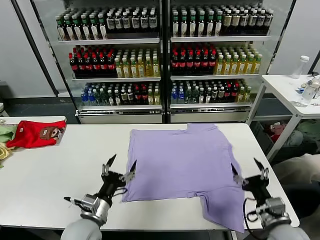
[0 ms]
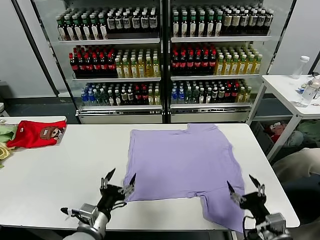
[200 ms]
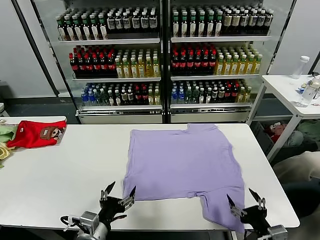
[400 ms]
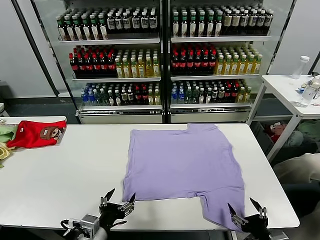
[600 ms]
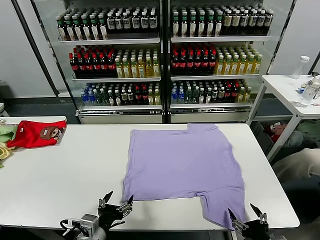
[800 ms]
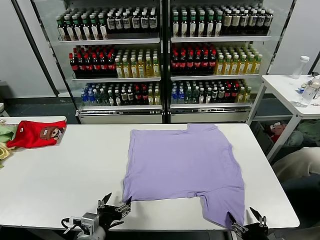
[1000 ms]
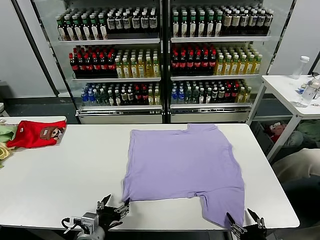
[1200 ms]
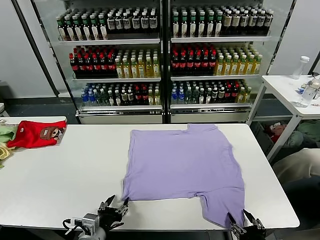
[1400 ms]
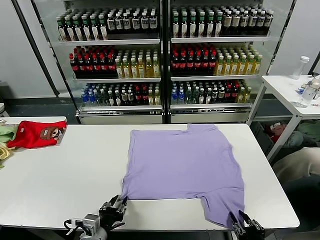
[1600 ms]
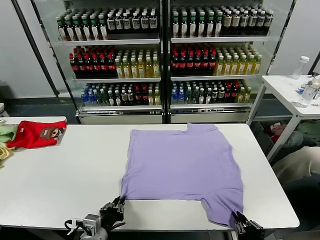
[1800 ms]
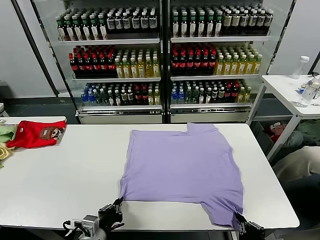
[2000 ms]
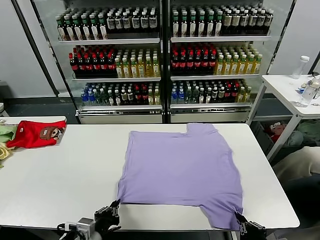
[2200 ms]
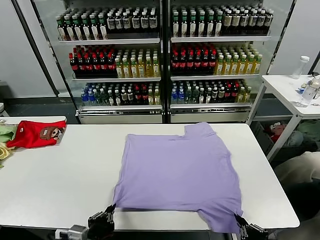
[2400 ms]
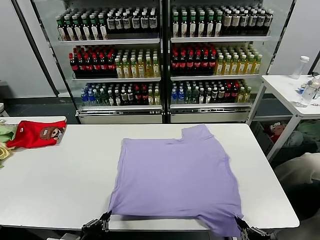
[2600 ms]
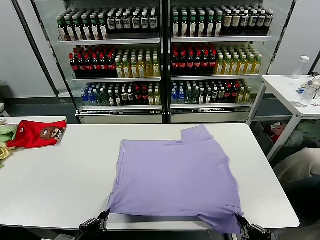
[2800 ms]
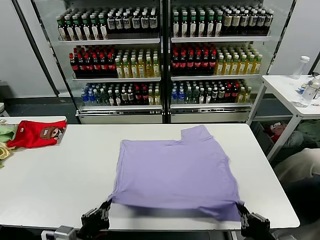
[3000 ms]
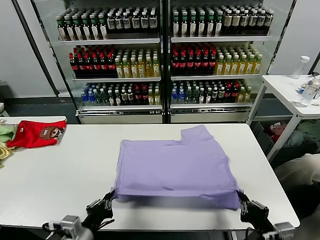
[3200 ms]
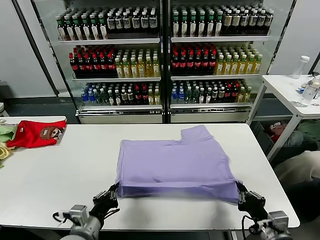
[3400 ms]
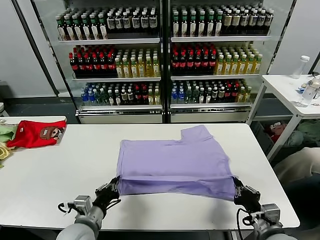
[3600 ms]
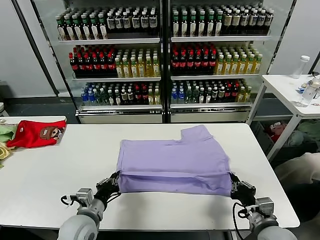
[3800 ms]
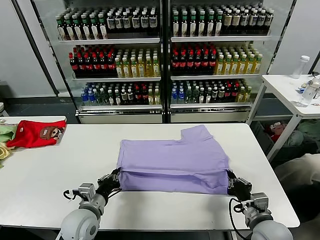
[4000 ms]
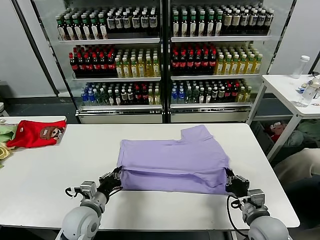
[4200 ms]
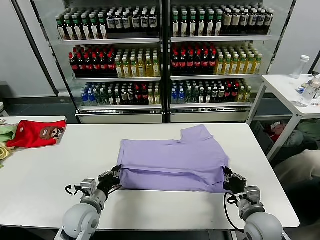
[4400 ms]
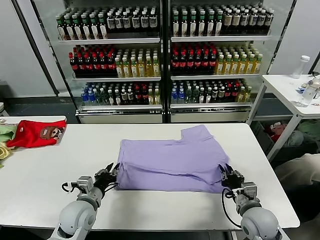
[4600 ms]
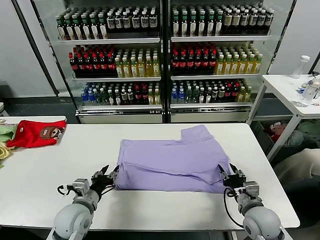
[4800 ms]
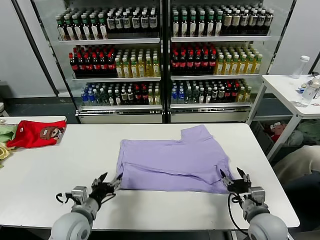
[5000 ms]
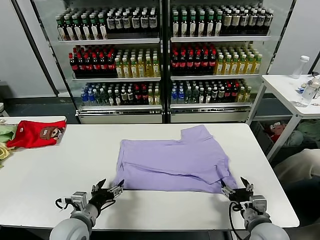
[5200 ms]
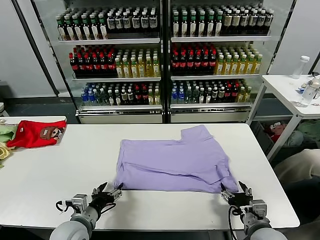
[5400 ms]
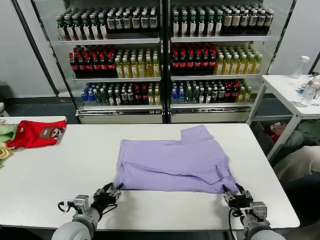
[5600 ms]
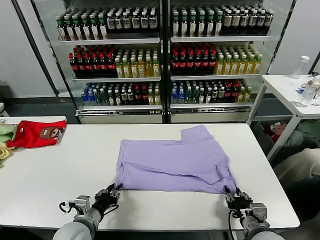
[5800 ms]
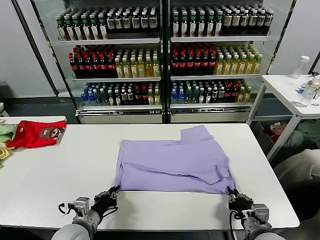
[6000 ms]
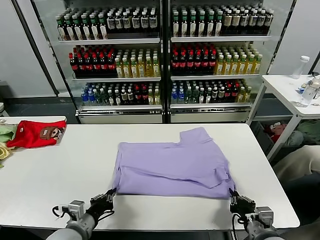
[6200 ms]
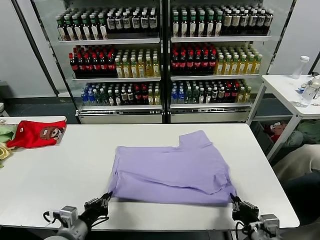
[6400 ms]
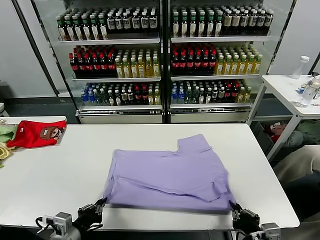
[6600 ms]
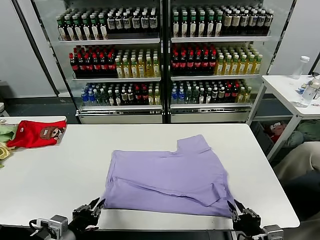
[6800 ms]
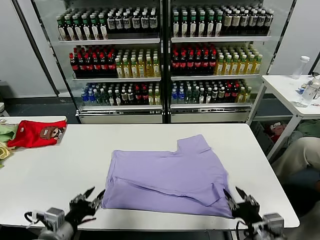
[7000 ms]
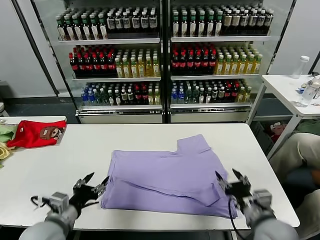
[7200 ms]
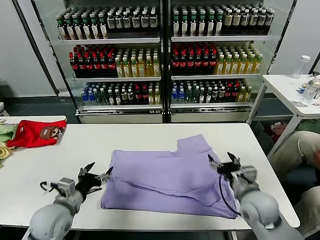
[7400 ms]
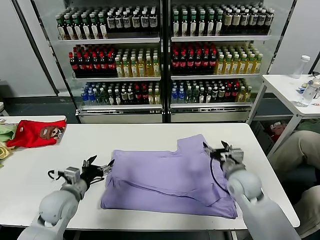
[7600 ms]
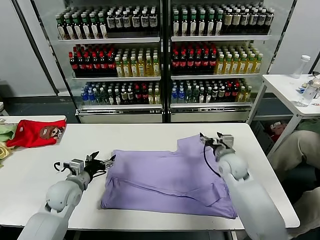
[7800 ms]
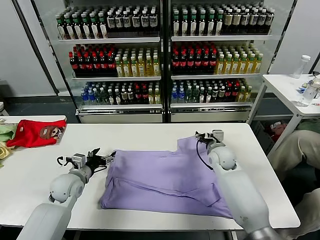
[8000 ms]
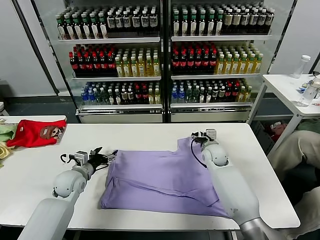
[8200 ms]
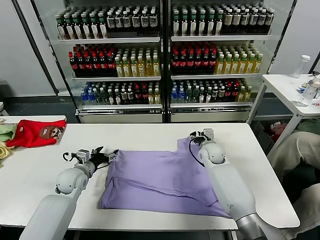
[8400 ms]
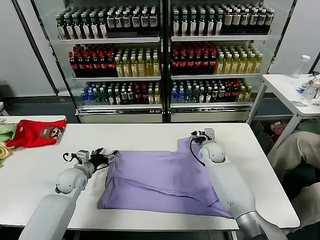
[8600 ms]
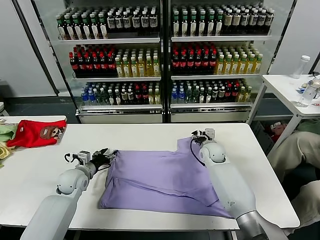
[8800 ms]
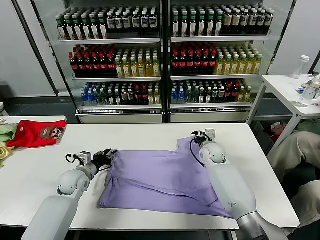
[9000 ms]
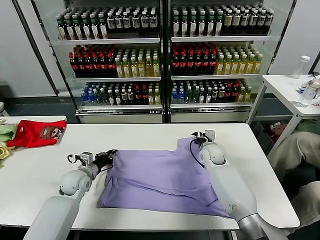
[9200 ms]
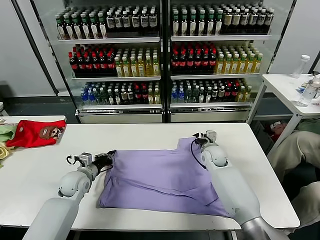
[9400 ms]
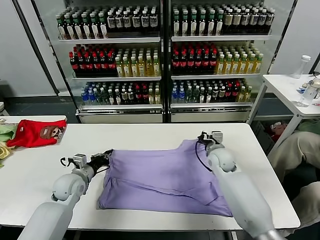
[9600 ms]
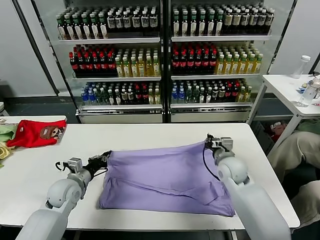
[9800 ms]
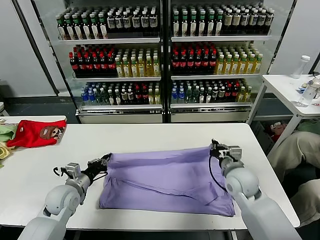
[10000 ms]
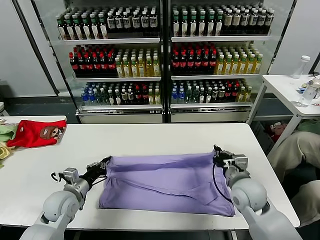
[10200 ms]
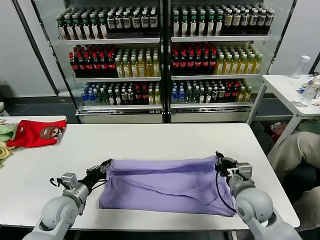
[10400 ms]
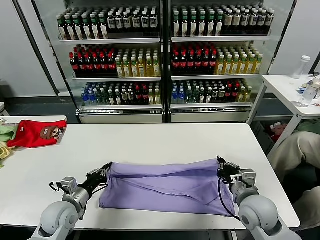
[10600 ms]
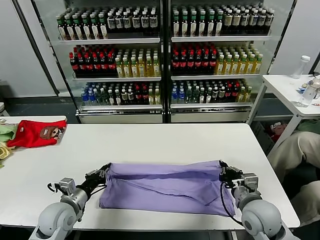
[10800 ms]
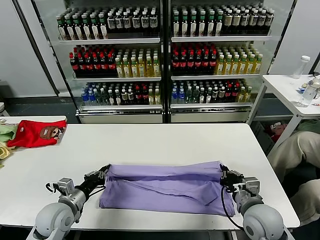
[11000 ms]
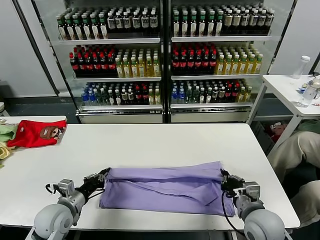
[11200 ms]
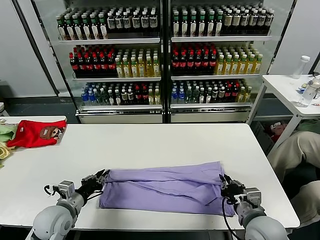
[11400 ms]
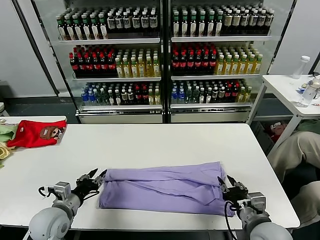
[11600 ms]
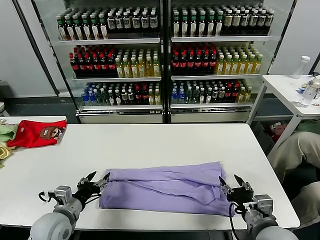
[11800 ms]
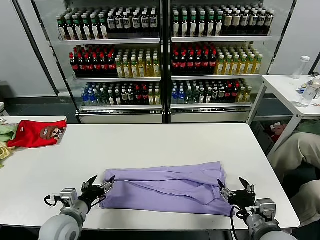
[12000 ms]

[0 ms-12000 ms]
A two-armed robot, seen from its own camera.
Task of the whole recording: fold and organize the clothes.
Step, 0 ms to 2000 ms: use both grippers simultaneously to clamp the lower edge of the clothing fabric.
Step, 2200 ms to 4800 ms: use both grippers to drag the lower edge of the fabric forward and fold it over the upper edge.
Step, 5000 ms to 6800 ms: Drag the clothes downward with both gripper.
Step, 7000 ms to 9200 ms: use both grippers simultaneously to clamp the upper edge of the clothing fabric.
Step, 9400 ms to 11800 ms: use both grippers to drag the upper edge of the fabric backward and fold it over the lower edge.
1600 ms to 3000 ms: The two grippers go about 5 cm upward. The left gripper closes up.
3000 ms to 4400 ms: The left gripper goes some 15 cm forward. Meanwhile the right gripper travels forward and downward by approximately 15 cm.
4400 ms to 6000 ms: Both grippers travel together backward, some 5 cm. The right gripper opens, then closes again. Meanwhile the left gripper opens and closes again.
6000 ms to 7600 ms: The left gripper heads forward and to the left, covering some 10 cm, and opens its fingers; the right gripper is displaced forward by roughly 25 cm, and opens.
7600 ms to 9000 ms: The left gripper shifts some 10 cm forward and downward, and closes. Meanwhile the right gripper moves forward, approximately 10 cm, and closes its fingers.
9000 ms to 10400 ms: The right gripper shifts some 25 cm backward, while the left gripper shifts about 10 cm backward, and closes up.
10400 ms to 12000 ms: The right gripper heads backward, covering roughly 10 cm, and opens its fingers. Meanwhile the left gripper heads backward, covering approximately 5 cm, and opens.

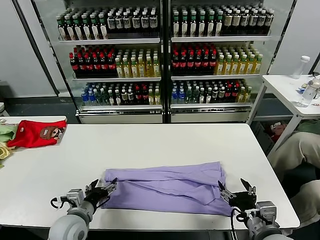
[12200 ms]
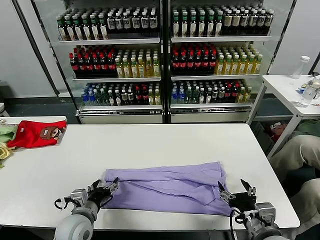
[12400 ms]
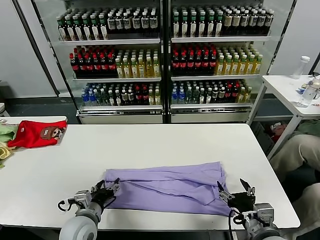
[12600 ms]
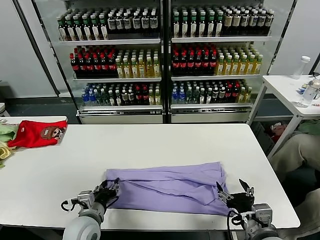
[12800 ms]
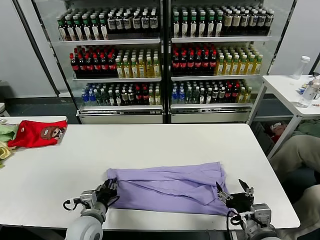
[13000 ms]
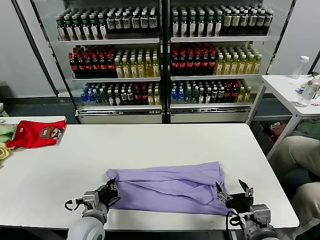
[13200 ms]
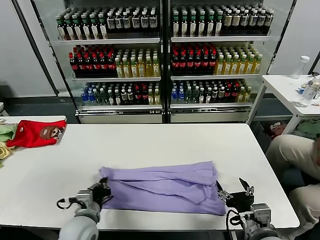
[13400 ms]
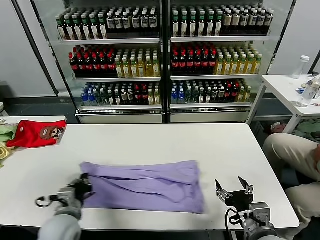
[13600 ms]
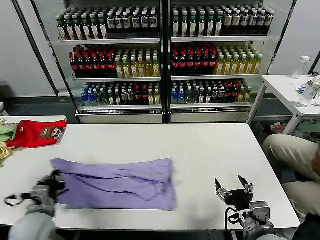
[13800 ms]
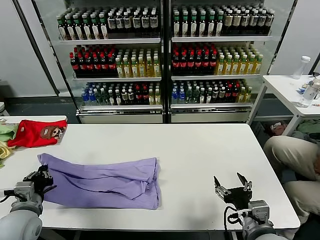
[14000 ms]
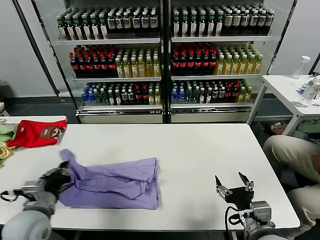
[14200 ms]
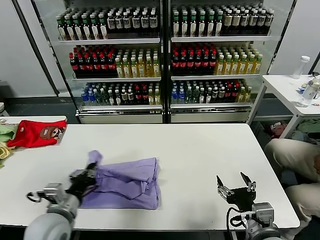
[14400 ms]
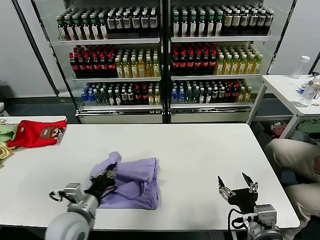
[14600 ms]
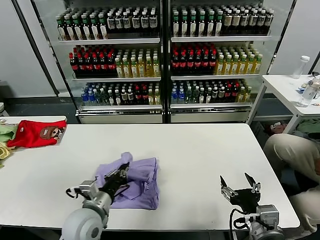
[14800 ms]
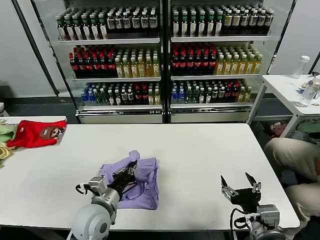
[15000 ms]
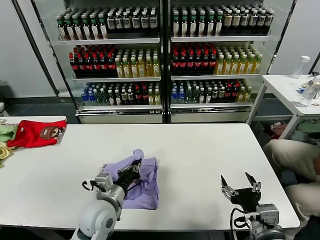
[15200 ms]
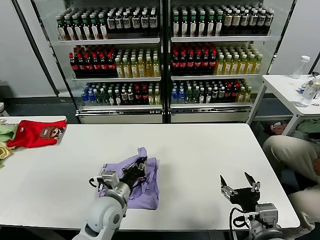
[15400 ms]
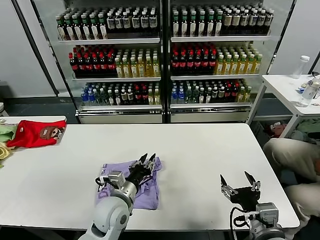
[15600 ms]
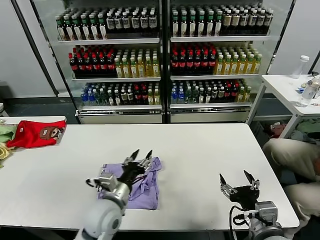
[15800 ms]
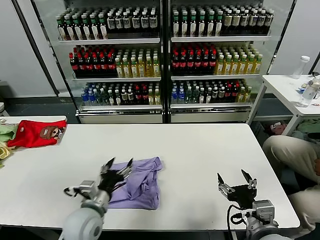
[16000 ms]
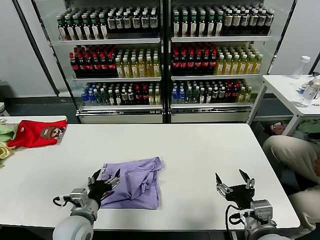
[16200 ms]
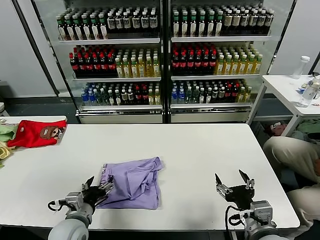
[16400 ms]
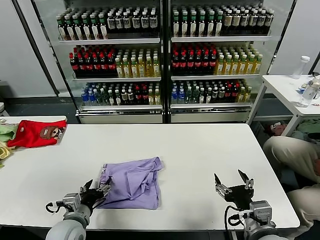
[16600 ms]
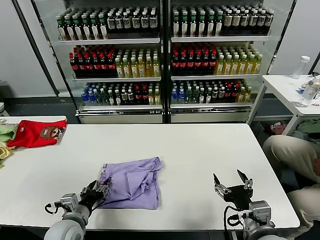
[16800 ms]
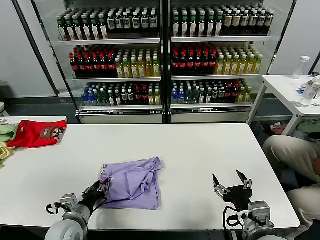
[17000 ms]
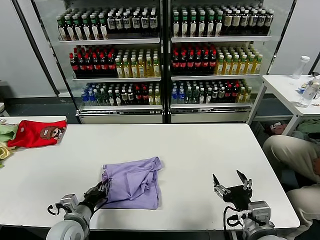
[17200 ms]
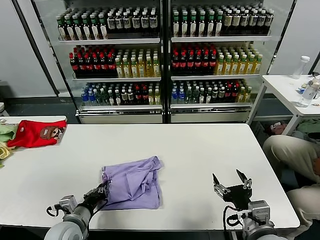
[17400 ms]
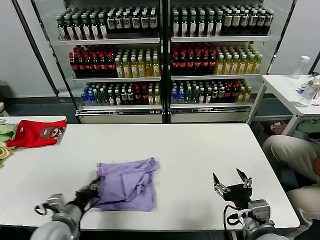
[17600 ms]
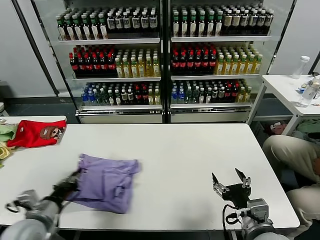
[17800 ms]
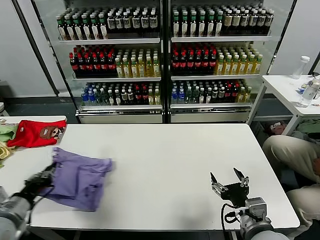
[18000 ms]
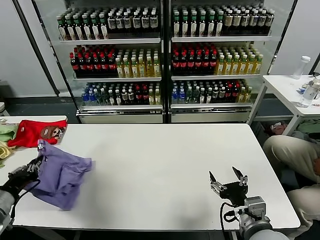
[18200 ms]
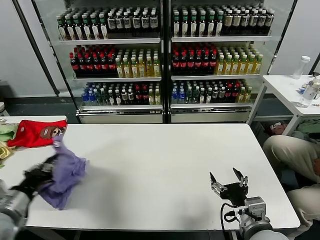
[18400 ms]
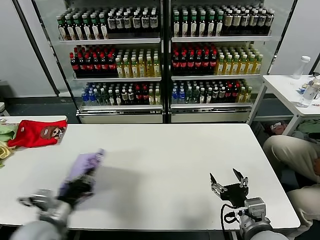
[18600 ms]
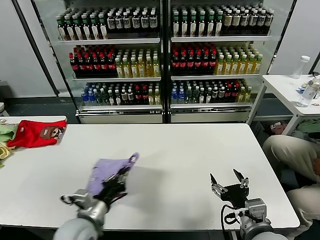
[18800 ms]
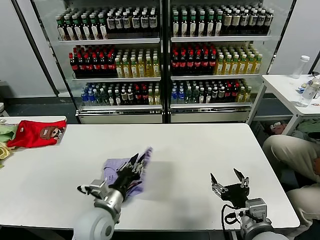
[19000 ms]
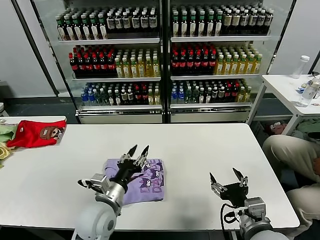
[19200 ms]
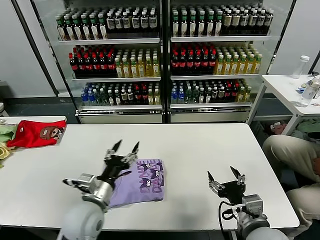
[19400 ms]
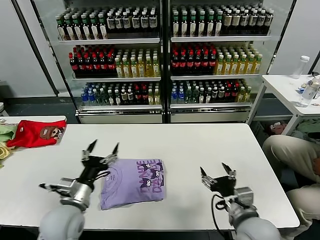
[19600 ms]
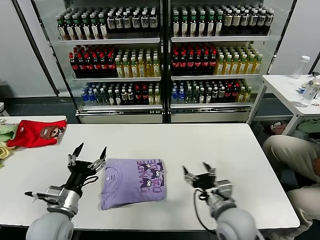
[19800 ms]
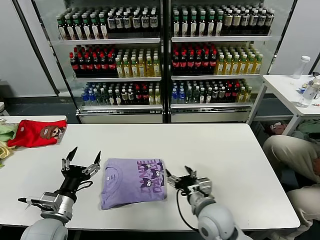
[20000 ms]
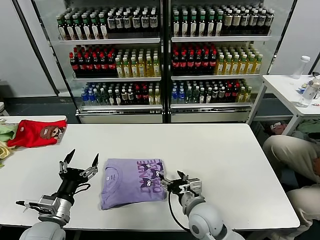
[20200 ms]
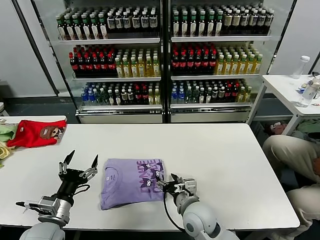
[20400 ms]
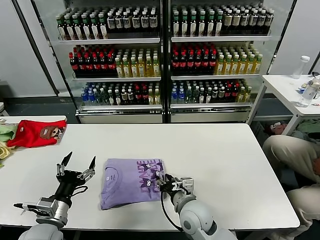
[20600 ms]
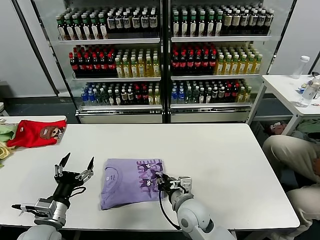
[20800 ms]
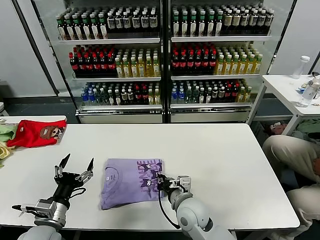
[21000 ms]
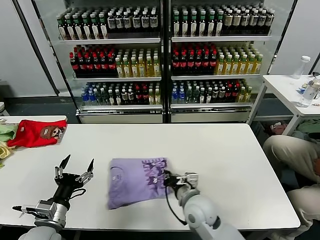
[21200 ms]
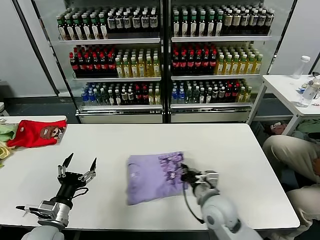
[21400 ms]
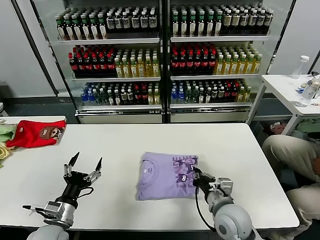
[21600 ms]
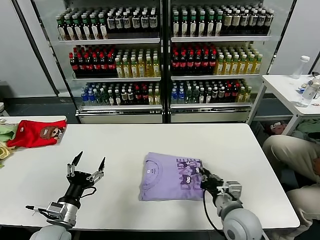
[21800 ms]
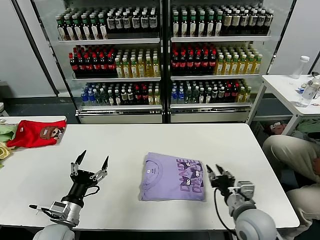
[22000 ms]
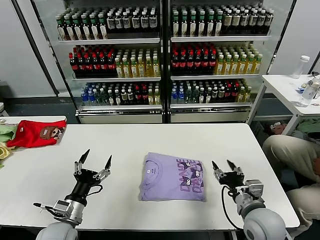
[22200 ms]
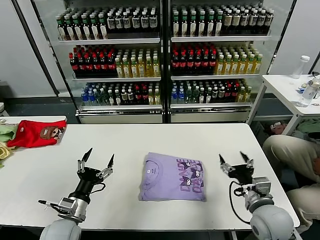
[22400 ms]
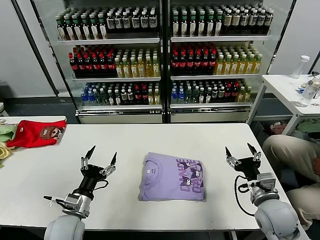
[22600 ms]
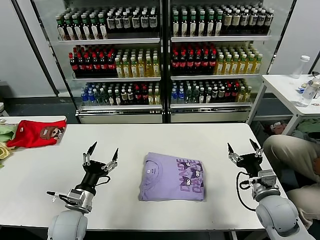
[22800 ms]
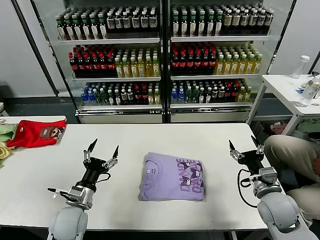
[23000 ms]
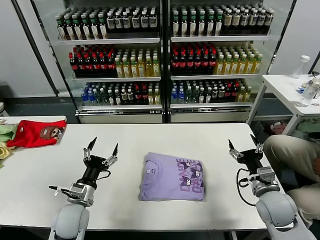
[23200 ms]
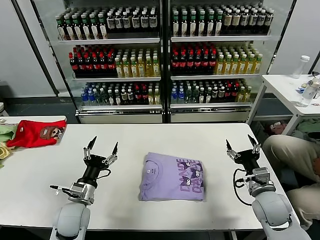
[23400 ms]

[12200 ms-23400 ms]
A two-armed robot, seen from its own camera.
Task of the whole recording: fold and organize the clothes.
Step, 12200 ms to 13200 ms: use the left gripper to clamp the left edge of the fabric.
Step, 13400 ms to 15600 ms: use the left gripper to drag the left edge of the fabric to the left and folds it over the right edge.
Step, 16000 ms to 19200 ms: Flip the folded clothes over with left gripper.
Step, 19400 ms to 22000 ms: Drag the clothes to the center of the table.
12200 ms to 13800 ms: The left gripper heads to the left, covering approximately 5 cm, and closes.
13800 ms to 15400 ms: The left gripper is displaced to the right by roughly 15 cm.
15400 ms to 17000 ms: The left gripper moves to the left and downward, approximately 15 cm, and opens, then closes again.
17000 ms to 18600 ms: The left gripper moves upward, some 10 cm, reaches approximately 15 cm to the left, then returns, and closes.
18600 ms to 20200 ms: The left gripper moves some 15 cm to the right and comes back, and opens its fingers. Meanwhile the right gripper goes roughly 15 cm to the left, forward and downward.
20200 ms to 21800 ms: The right gripper travels to the right by approximately 10 cm, and closes up.
21800 ms to 23400 ms: The left gripper travels forward by some 5 cm. Meanwhile the right gripper is displaced to the right by roughly 10 cm, and opens.
